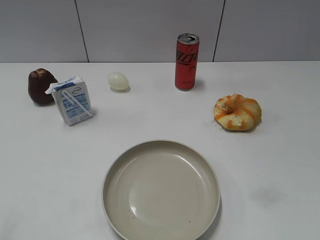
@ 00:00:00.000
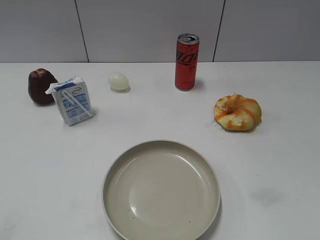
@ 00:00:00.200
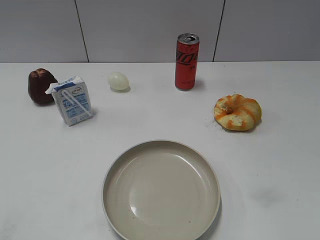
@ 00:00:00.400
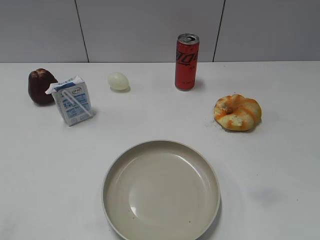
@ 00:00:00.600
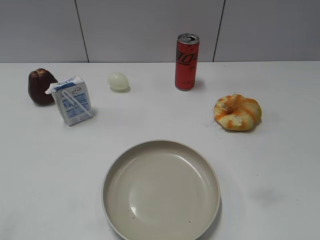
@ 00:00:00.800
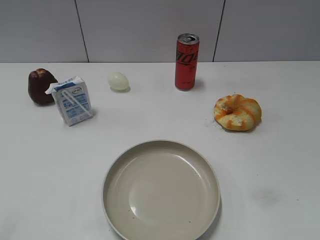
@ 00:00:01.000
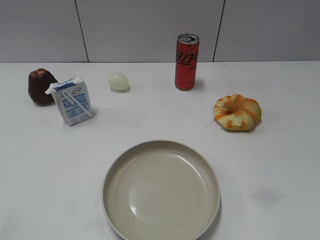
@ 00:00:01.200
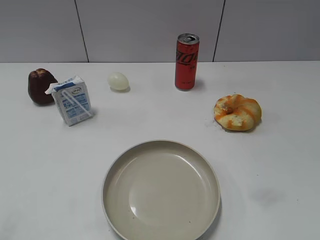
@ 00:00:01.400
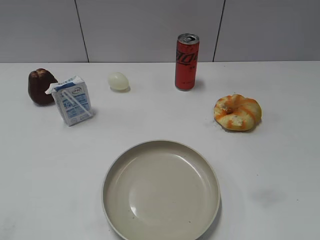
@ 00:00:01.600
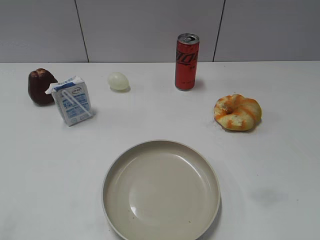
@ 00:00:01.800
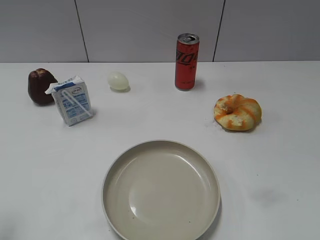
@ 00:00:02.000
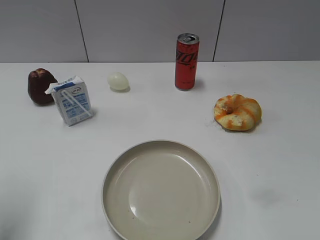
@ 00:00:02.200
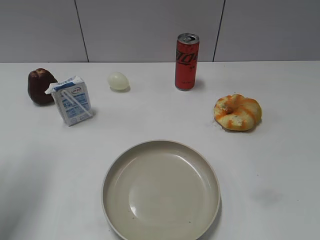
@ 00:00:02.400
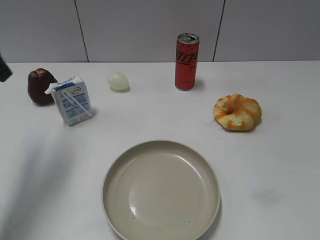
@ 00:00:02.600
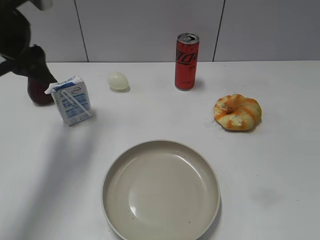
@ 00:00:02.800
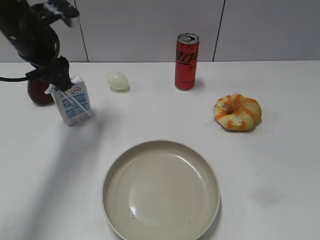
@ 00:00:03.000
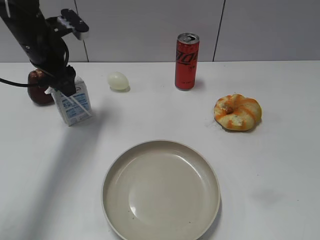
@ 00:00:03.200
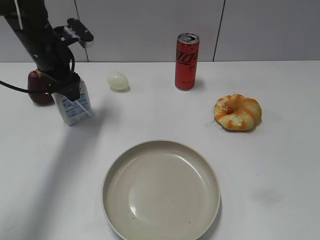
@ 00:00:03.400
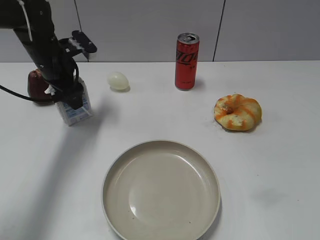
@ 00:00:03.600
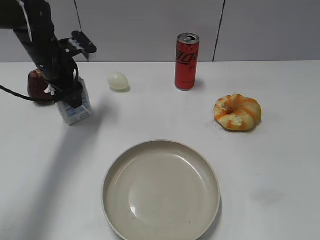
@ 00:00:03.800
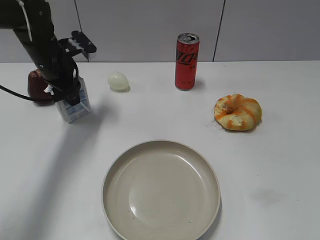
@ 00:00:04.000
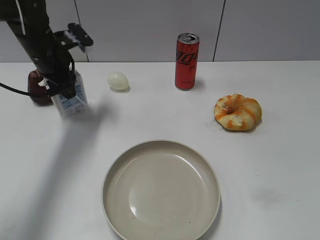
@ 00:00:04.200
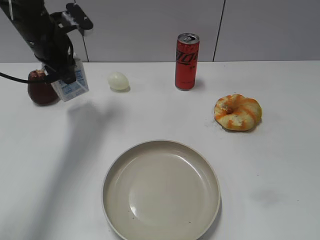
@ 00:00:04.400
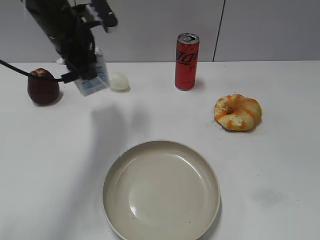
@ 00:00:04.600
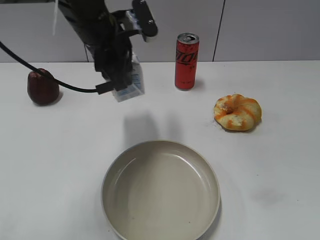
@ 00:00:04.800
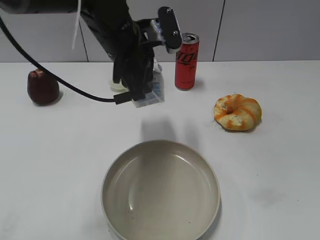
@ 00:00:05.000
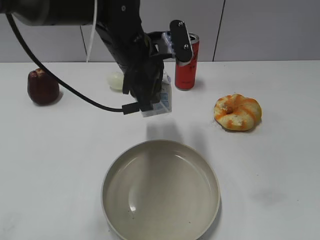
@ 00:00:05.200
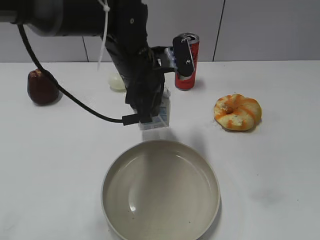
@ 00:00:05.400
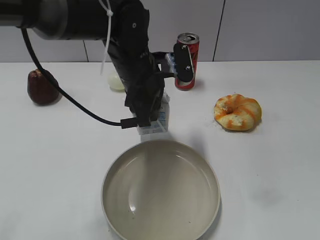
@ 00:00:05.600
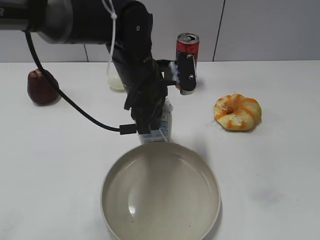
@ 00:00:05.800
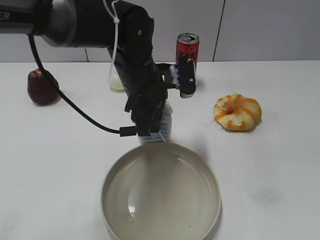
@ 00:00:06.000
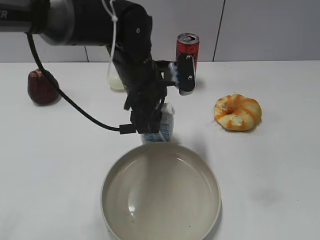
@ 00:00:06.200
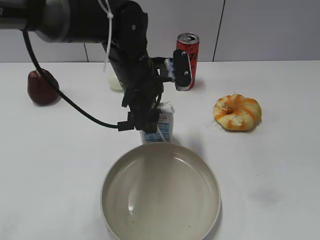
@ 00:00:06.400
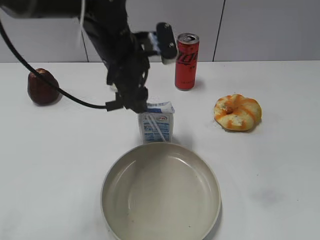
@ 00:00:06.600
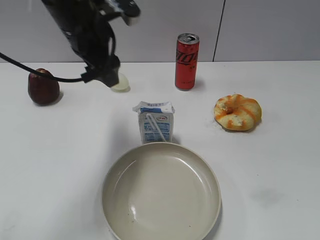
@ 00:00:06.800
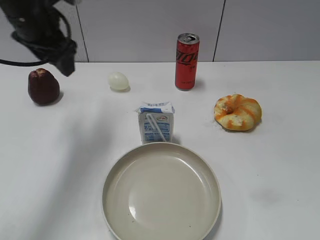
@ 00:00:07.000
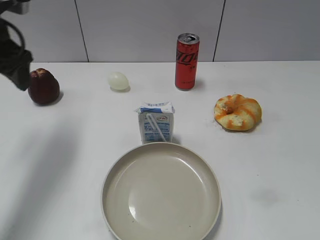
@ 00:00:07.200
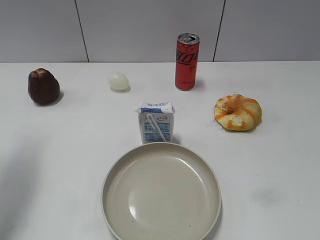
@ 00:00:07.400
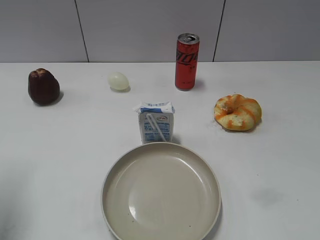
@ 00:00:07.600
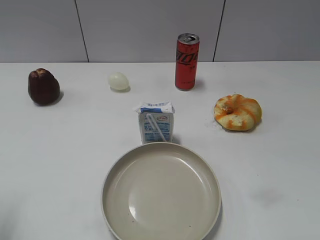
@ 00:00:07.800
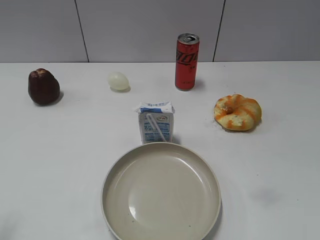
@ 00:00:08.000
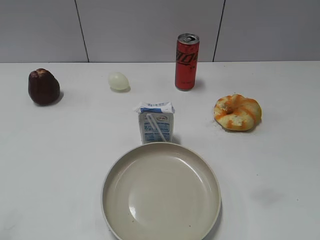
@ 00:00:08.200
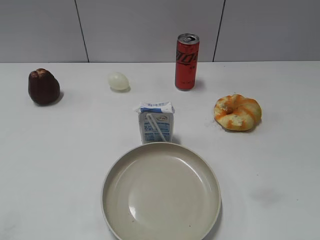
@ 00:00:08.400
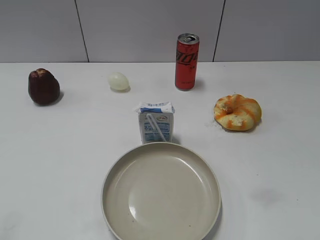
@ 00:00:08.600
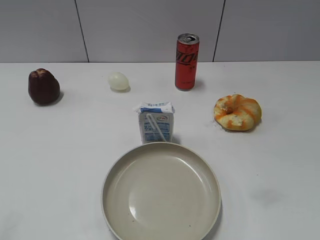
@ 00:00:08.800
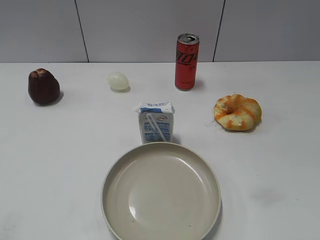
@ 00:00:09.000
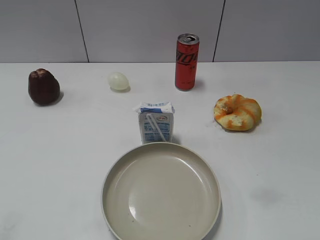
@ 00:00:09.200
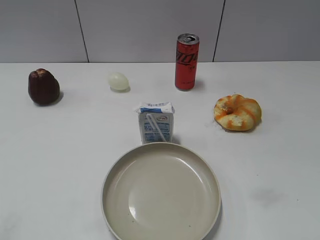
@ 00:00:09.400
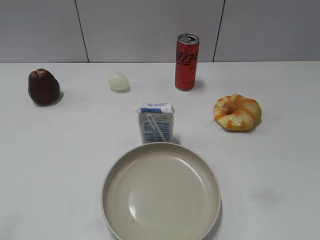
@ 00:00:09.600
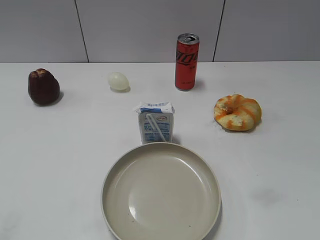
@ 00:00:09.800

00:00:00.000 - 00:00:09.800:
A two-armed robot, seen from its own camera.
Step, 00:00:01.600 - 00:00:04.000: Grasp the milk with left gripper.
Step, 00:00:04.200 - 00:00:06.400: Place the milk on the table with left gripper.
00:00:01.400 - 00:00:02.800: The left gripper moves forward, roughly 35 cm.
00:00:02.800 - 00:00:04.200: The left gripper moves downward and forward, approximately 15 cm, and closes up.
00:00:04.200 - 00:00:05.600: The left gripper is displaced to the right and backward by approximately 20 cm.
00:00:05.600 - 00:00:07.000: The left gripper goes about 15 cm to the left and upward, and opens.
00:00:07.000 - 00:00:08.400: The left gripper travels backward and to the left by approximately 35 cm.
